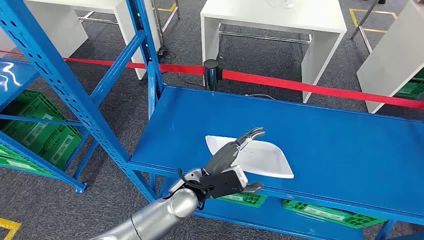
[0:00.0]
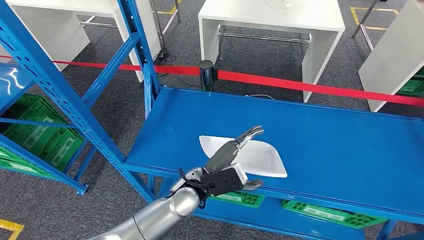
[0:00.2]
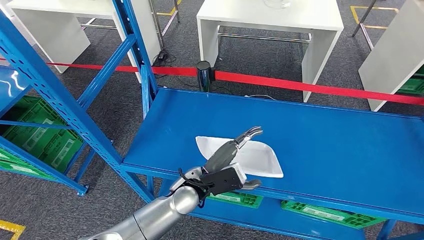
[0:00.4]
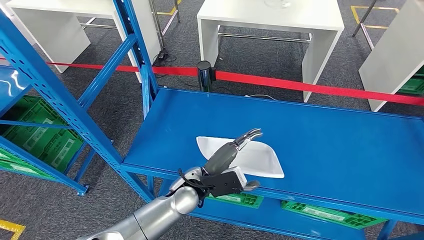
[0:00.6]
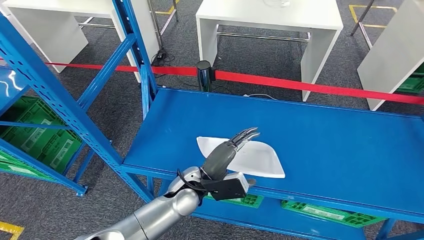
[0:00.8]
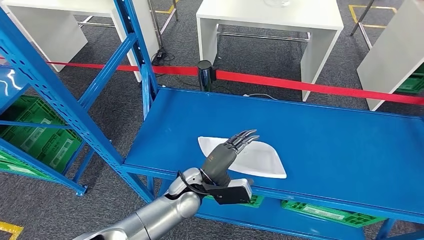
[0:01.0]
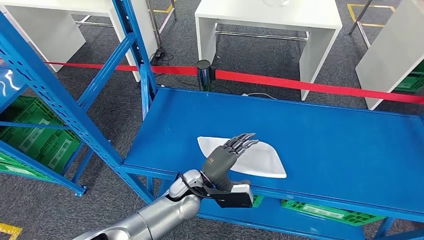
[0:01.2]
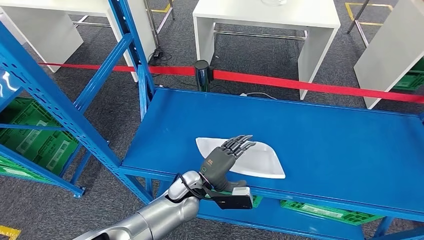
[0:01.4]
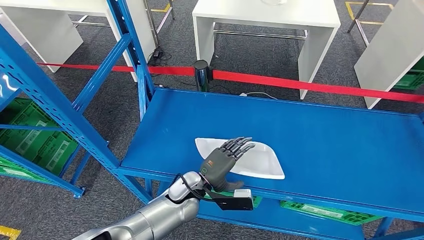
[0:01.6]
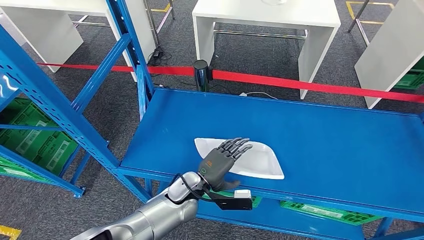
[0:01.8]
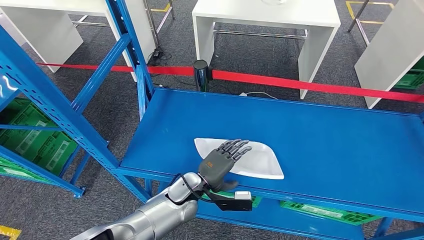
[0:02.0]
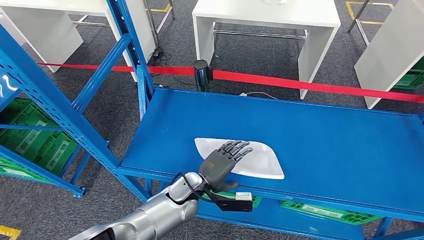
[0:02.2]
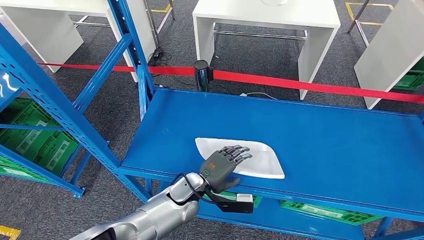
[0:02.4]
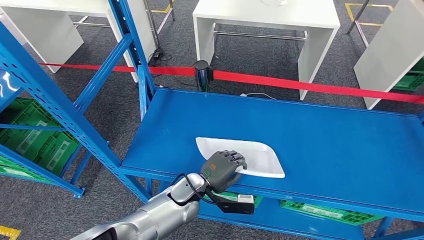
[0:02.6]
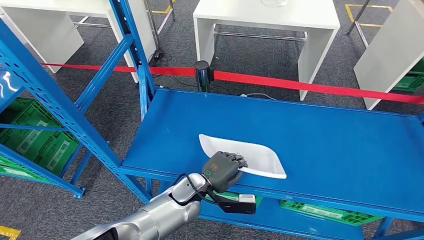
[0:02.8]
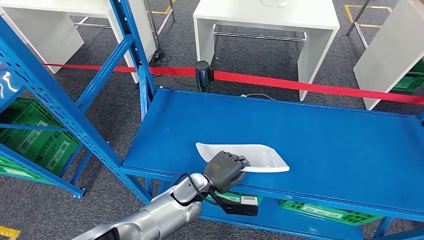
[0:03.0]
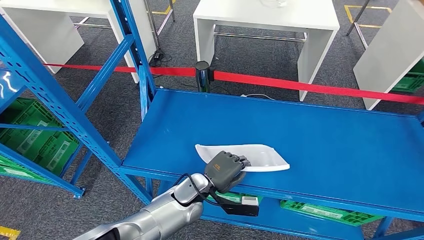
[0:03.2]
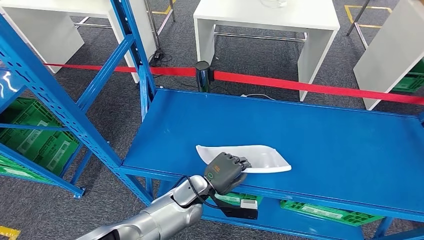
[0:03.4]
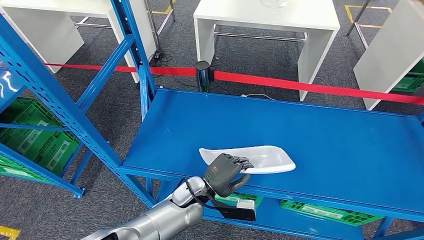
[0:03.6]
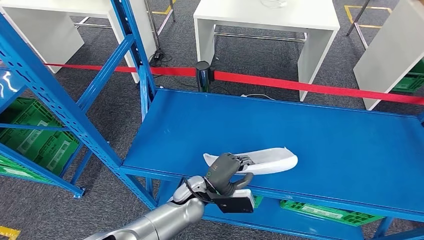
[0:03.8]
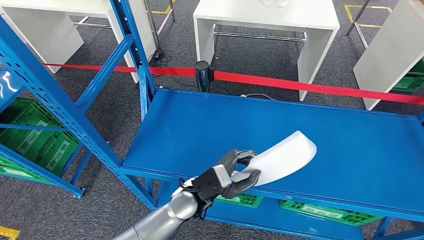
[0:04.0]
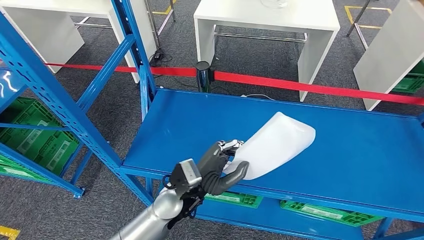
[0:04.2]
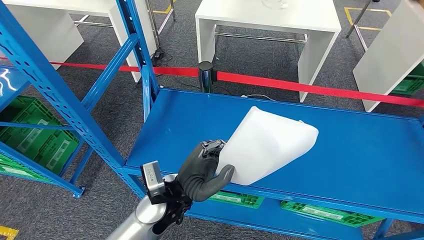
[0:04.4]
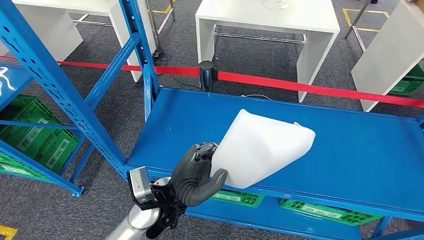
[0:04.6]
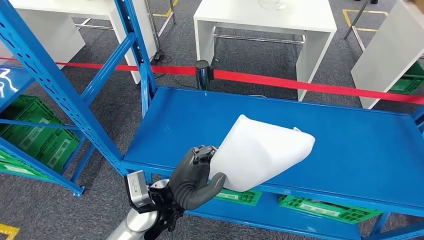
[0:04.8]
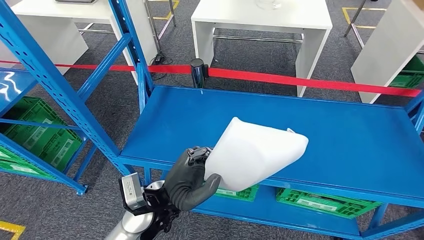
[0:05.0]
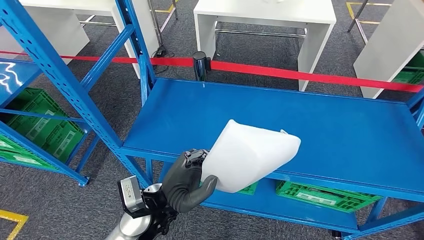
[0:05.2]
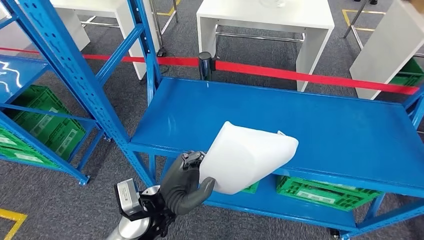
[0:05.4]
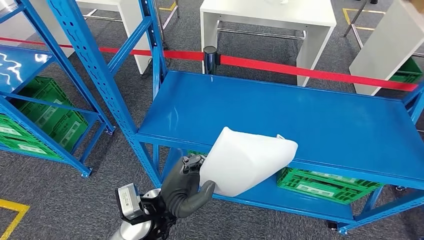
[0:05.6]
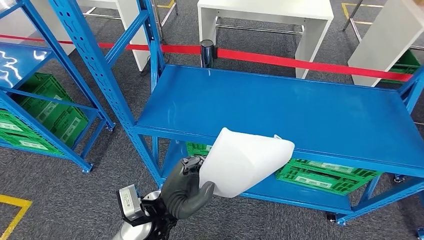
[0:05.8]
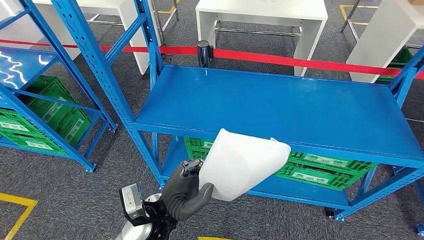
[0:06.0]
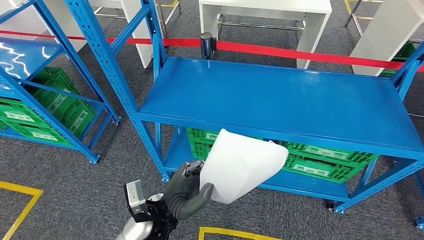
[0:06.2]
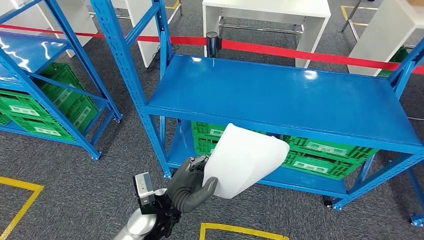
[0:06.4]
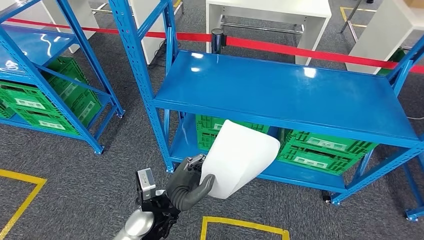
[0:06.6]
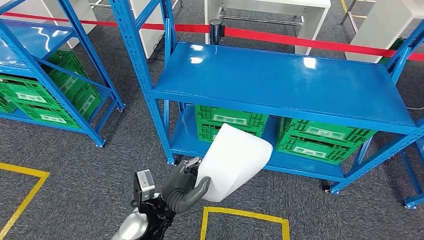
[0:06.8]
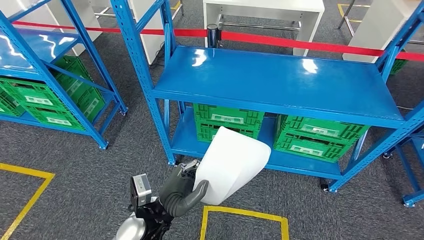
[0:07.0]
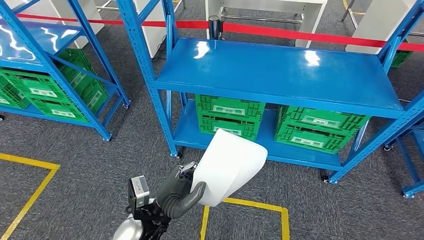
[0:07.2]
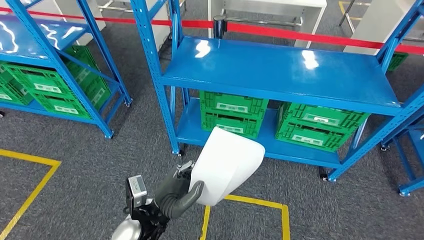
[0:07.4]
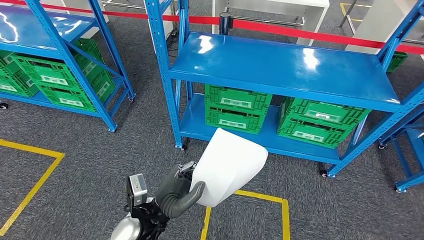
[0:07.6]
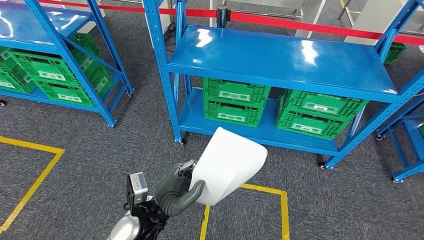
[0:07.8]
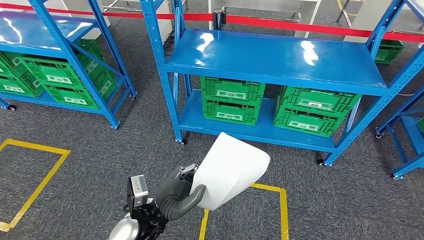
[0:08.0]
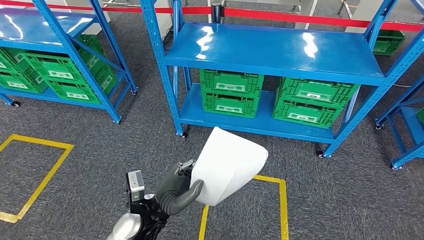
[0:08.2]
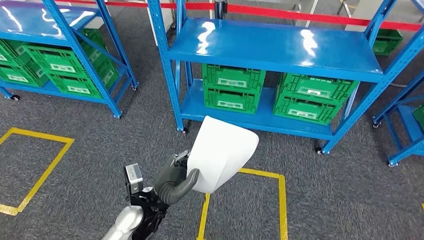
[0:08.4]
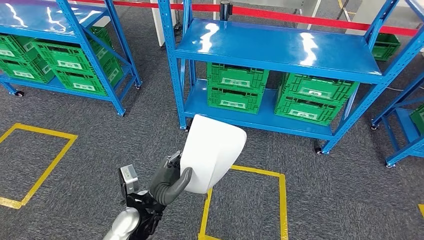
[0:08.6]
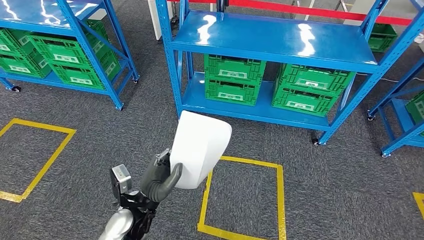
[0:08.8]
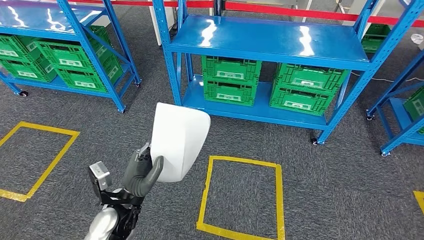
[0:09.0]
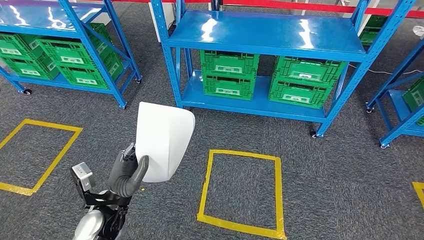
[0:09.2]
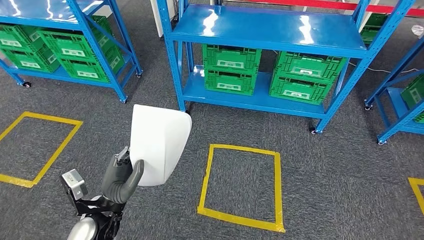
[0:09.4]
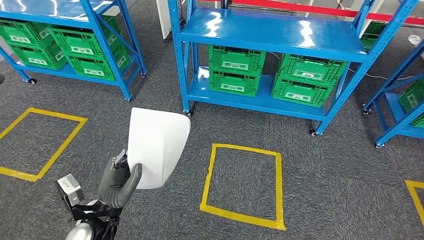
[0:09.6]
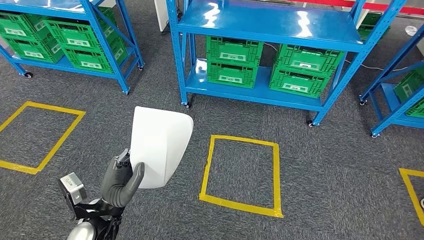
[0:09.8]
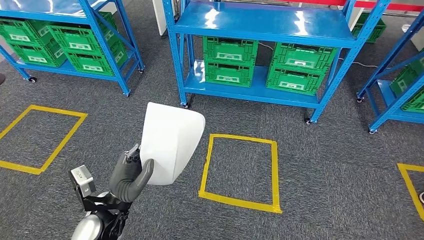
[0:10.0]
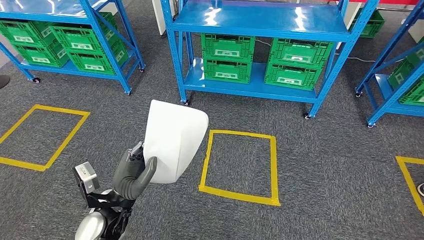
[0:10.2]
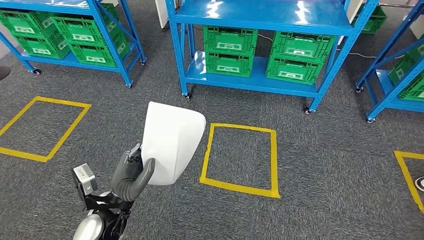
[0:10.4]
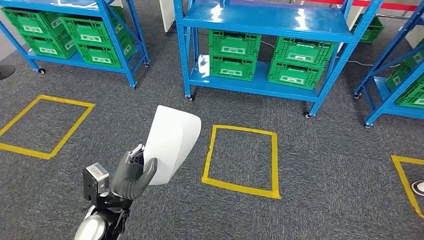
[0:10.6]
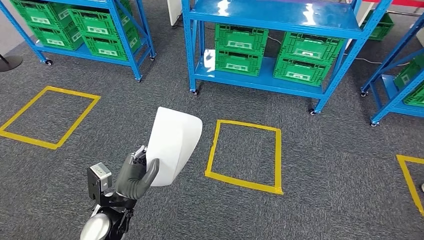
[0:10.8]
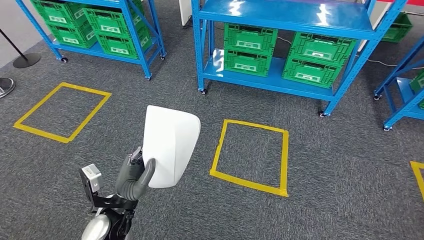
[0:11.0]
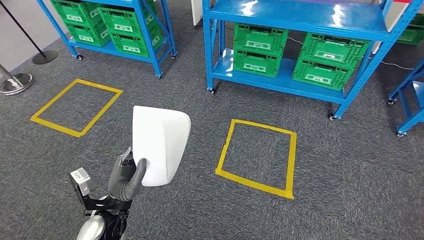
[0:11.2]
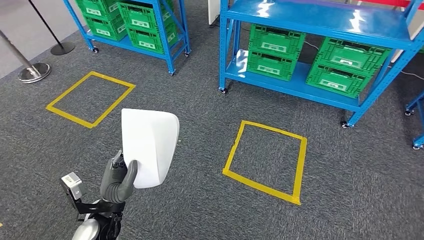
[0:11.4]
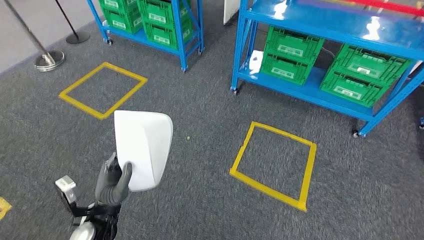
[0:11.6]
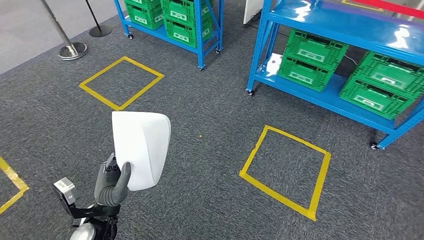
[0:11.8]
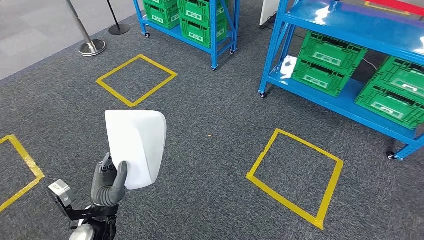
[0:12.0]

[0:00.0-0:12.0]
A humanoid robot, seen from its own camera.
Step, 0:00.0 to 0:06.6: Take small components from the rack.
0:01.6 to 0:03.0: The hands stay close to where they were, moving slightly.
0:03.0 to 0:04.4: The left hand heads upward, covering some 10 cm.

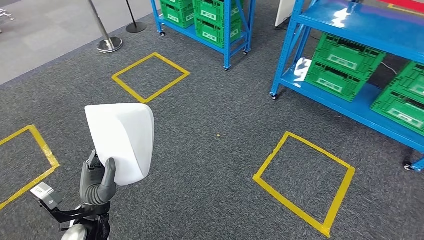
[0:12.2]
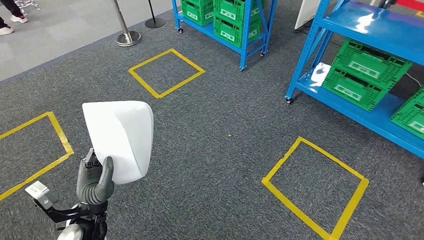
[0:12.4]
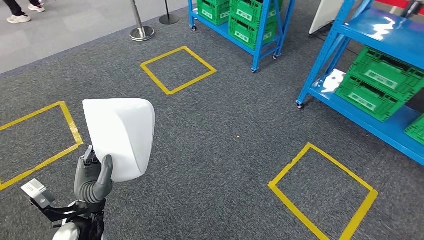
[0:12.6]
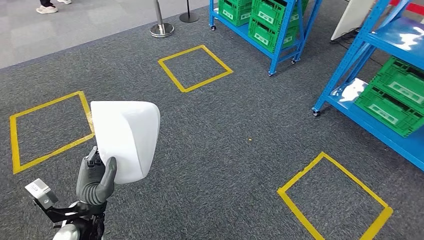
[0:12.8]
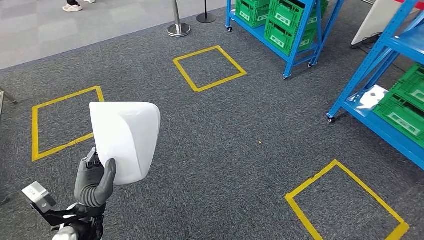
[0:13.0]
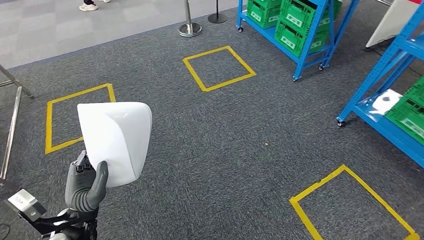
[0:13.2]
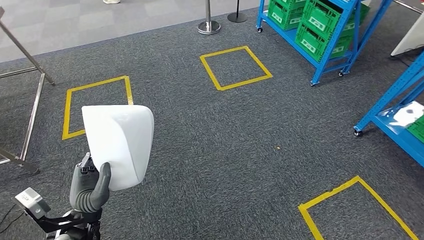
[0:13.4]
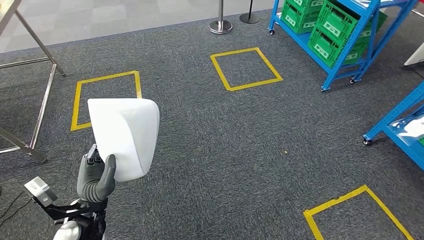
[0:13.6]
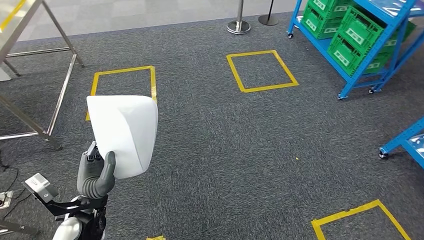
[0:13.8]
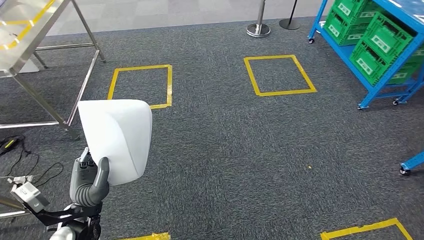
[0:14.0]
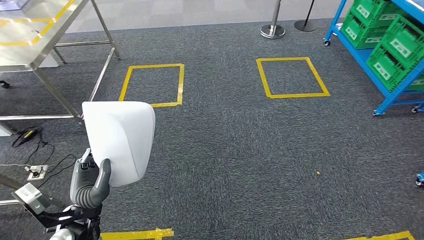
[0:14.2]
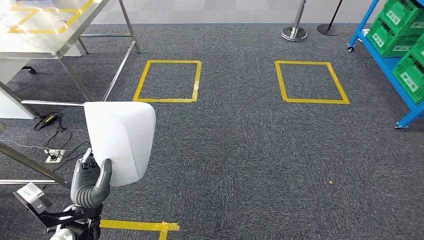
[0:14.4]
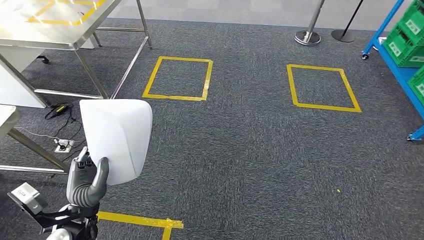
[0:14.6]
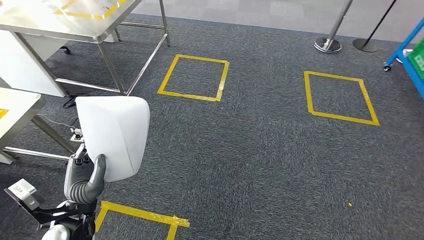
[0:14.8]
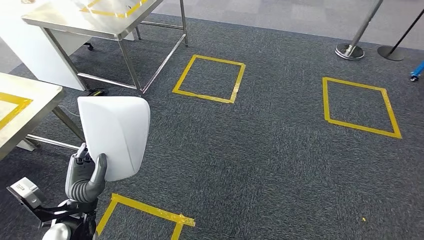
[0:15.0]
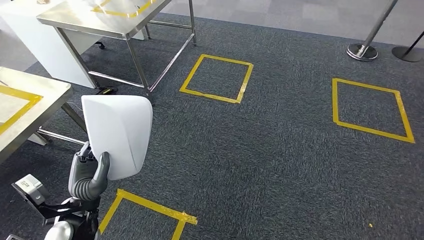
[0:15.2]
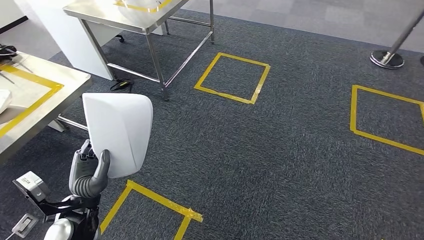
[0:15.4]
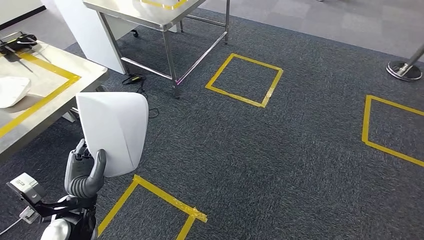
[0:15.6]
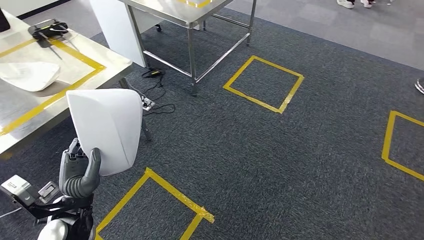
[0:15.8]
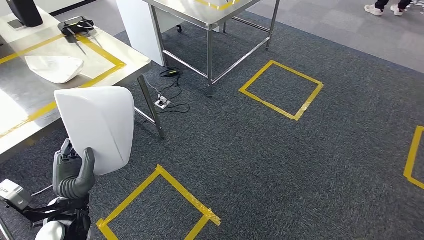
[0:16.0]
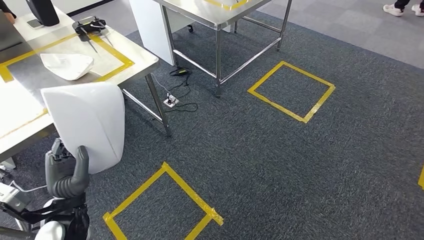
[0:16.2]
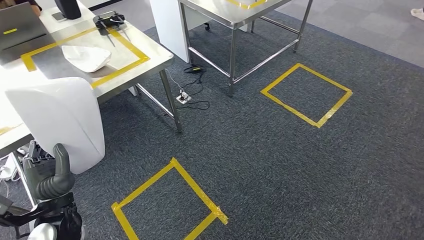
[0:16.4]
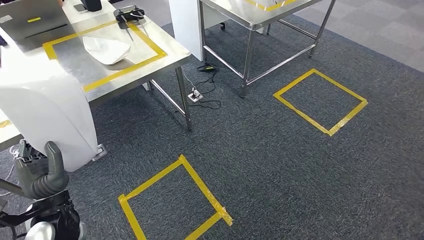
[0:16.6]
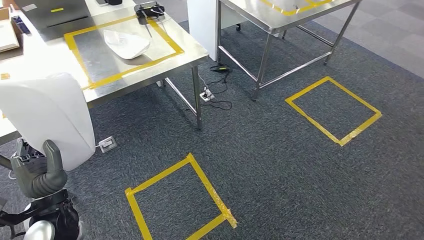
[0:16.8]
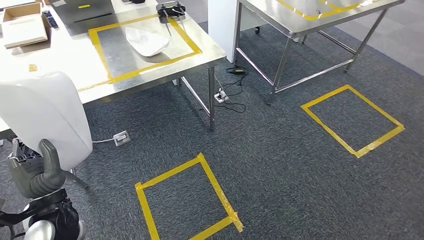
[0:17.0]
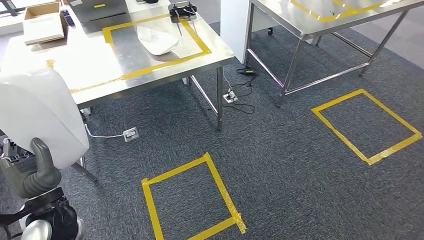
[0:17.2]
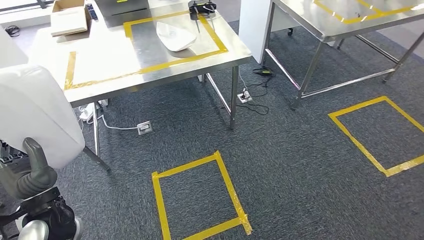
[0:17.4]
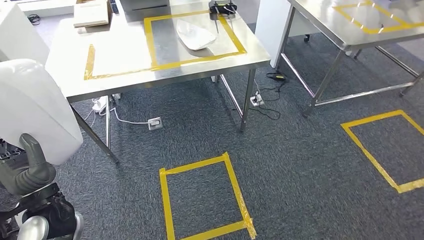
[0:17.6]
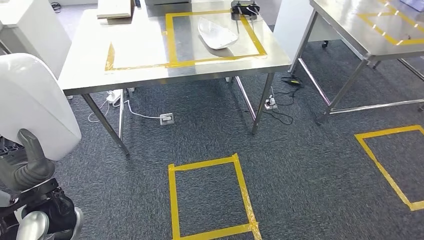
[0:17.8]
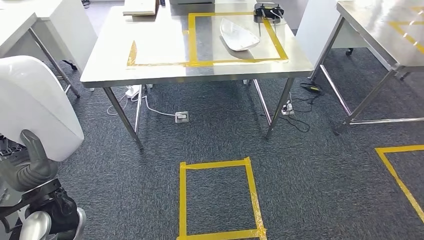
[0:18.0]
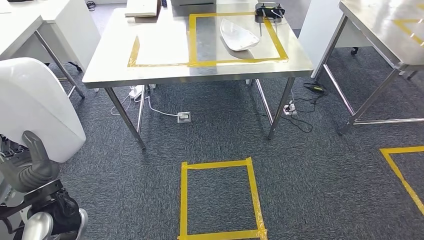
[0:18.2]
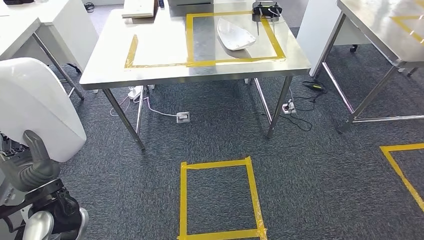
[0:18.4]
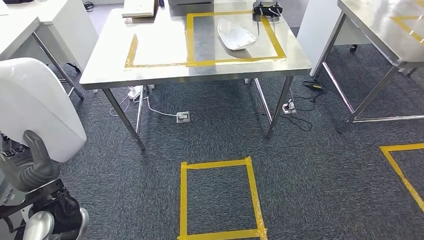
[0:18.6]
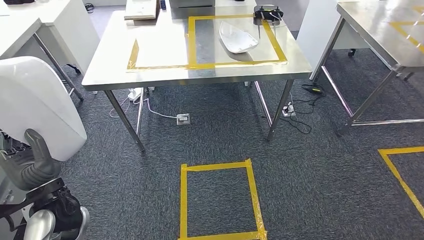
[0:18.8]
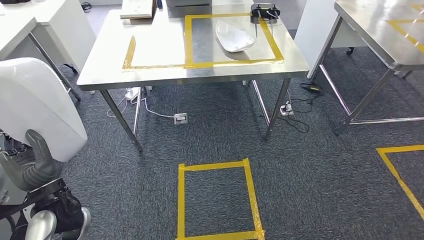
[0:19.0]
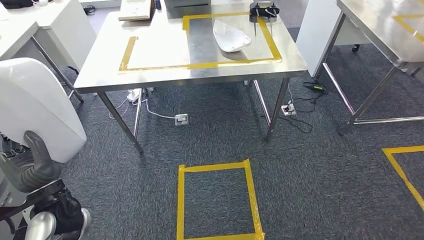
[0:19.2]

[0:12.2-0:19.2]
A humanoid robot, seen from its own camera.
Step, 0:12.2 to 0:17.8: Move the small parts to the workbench.
